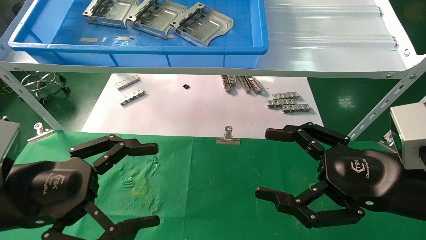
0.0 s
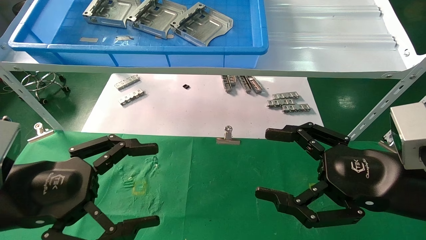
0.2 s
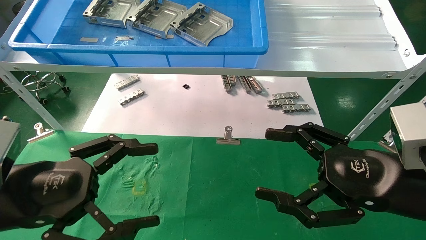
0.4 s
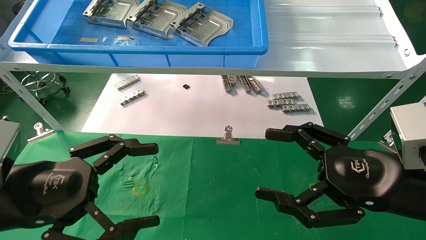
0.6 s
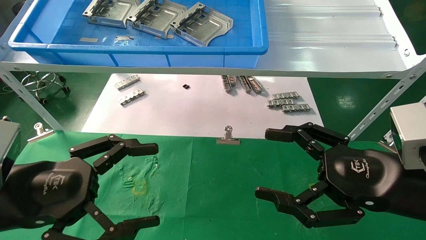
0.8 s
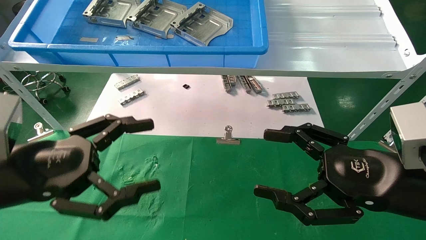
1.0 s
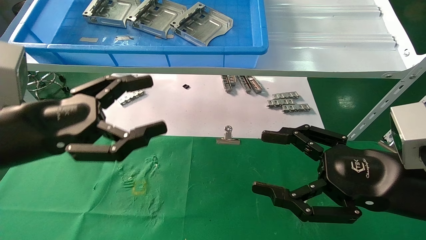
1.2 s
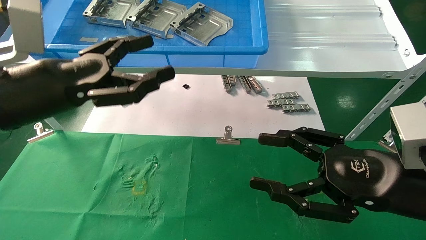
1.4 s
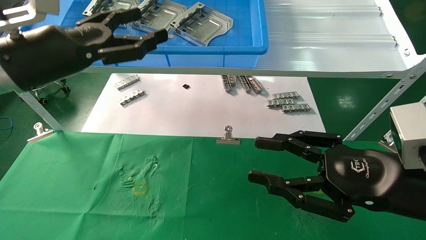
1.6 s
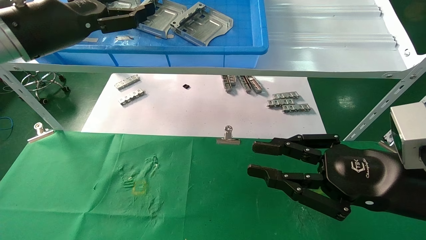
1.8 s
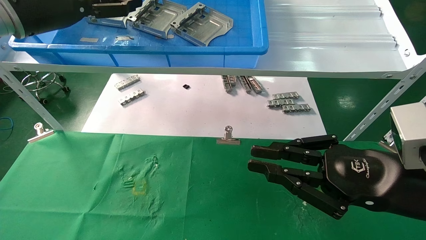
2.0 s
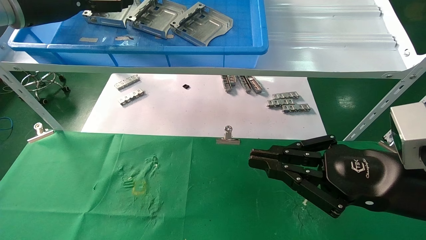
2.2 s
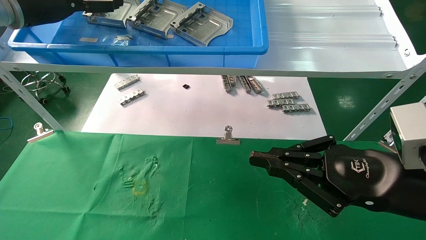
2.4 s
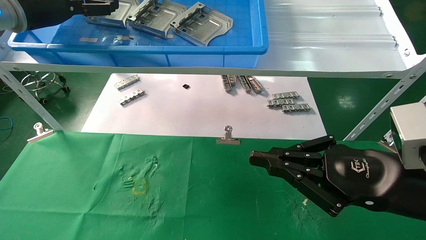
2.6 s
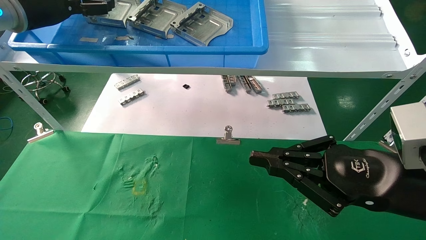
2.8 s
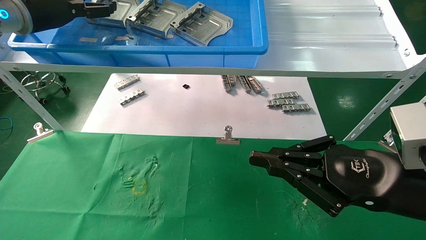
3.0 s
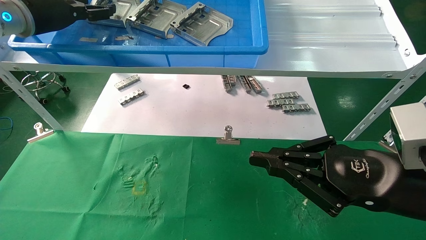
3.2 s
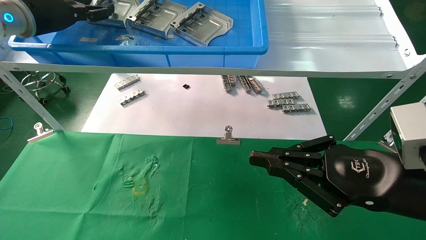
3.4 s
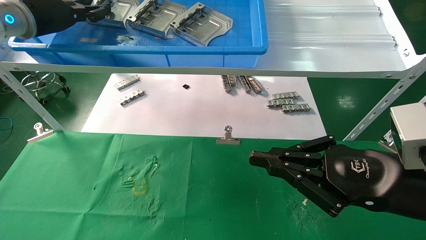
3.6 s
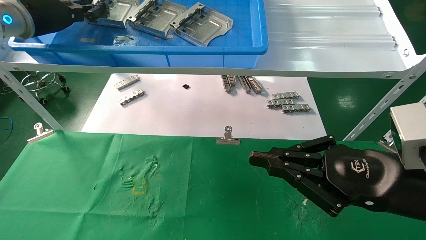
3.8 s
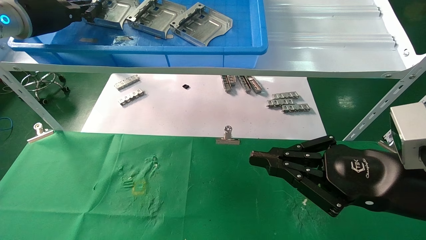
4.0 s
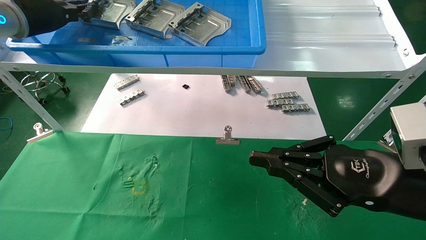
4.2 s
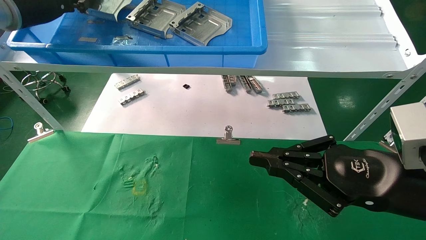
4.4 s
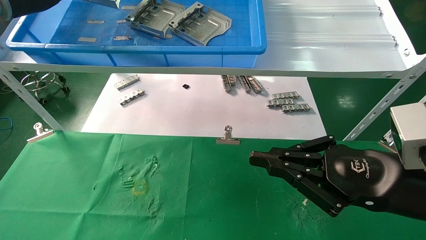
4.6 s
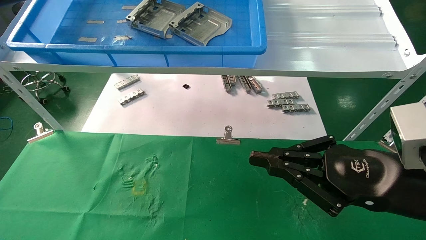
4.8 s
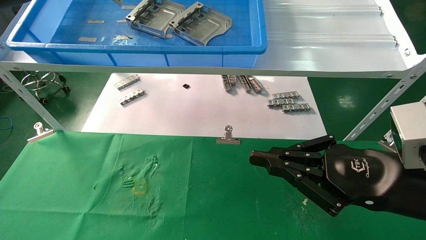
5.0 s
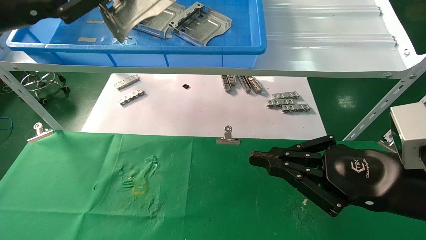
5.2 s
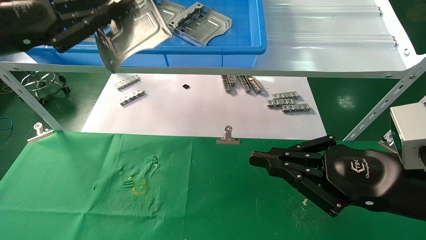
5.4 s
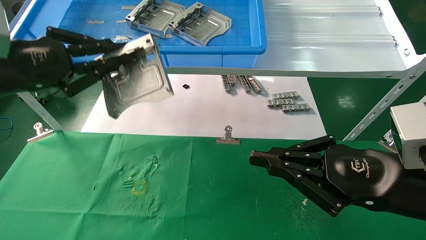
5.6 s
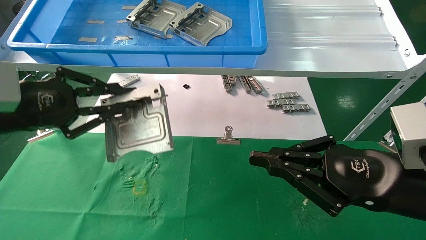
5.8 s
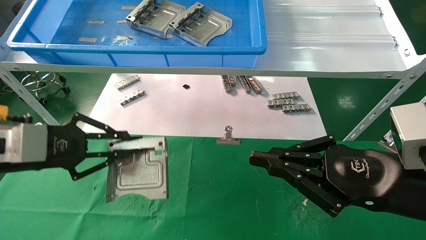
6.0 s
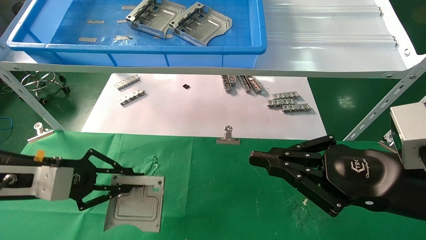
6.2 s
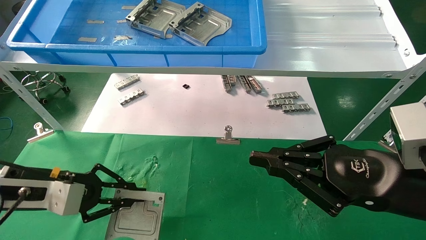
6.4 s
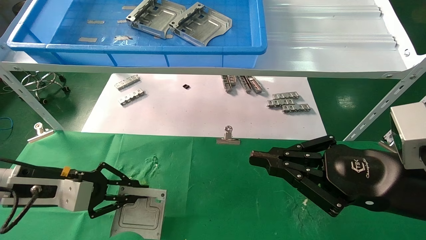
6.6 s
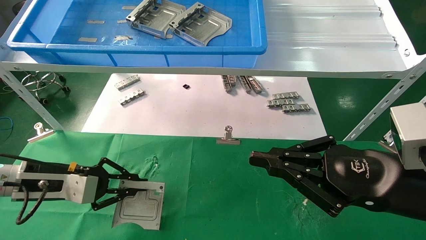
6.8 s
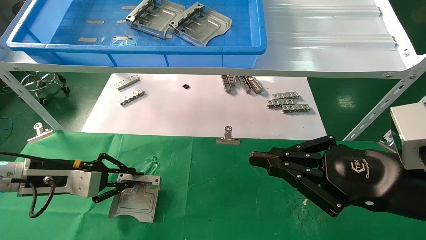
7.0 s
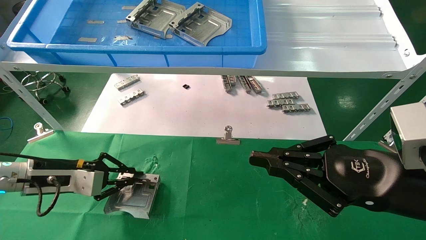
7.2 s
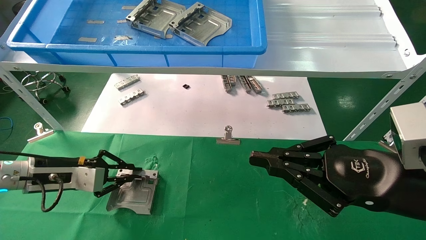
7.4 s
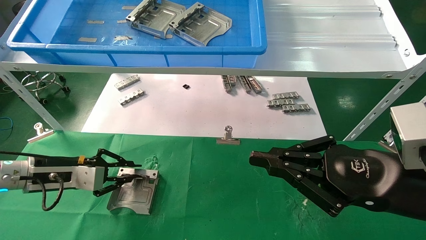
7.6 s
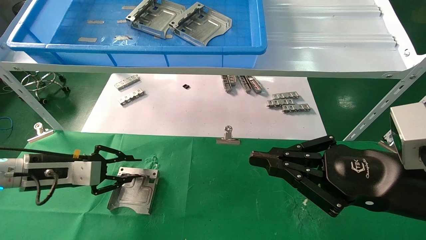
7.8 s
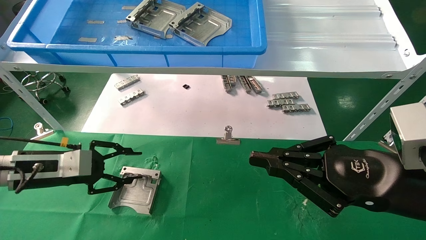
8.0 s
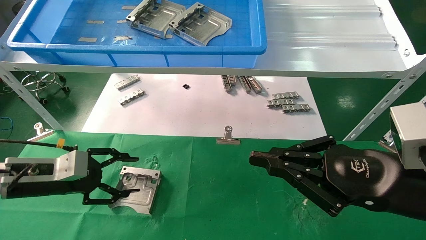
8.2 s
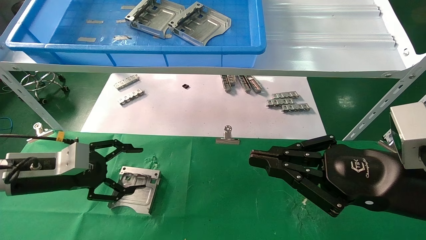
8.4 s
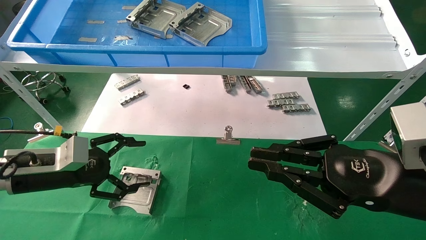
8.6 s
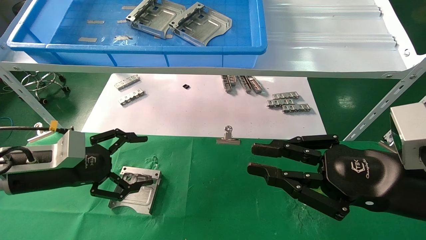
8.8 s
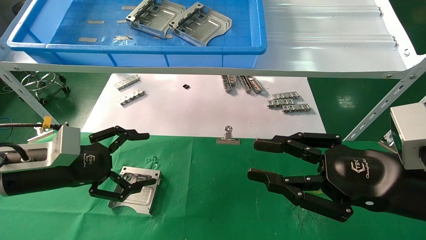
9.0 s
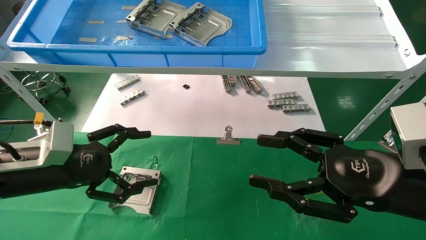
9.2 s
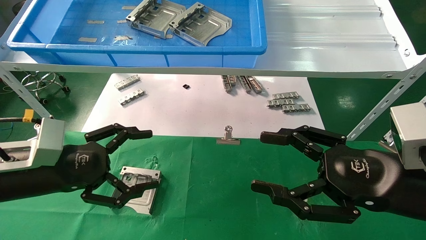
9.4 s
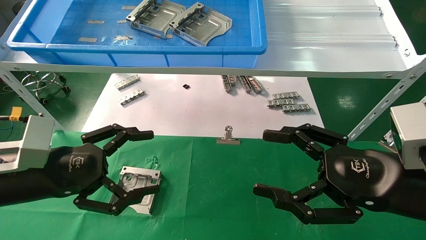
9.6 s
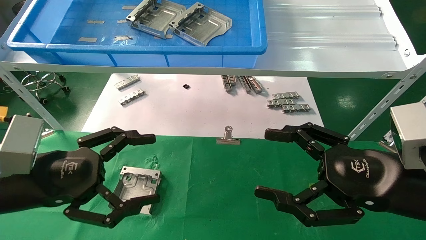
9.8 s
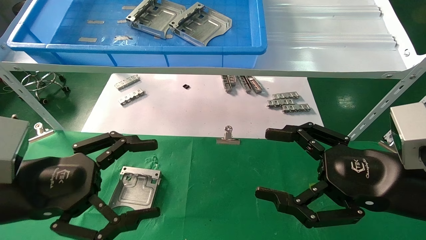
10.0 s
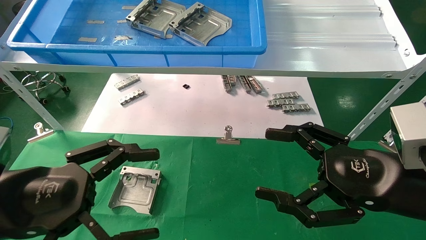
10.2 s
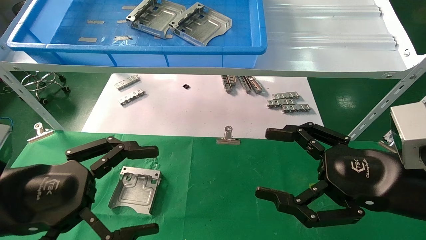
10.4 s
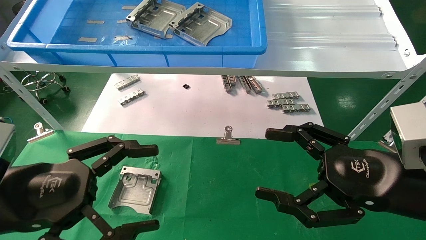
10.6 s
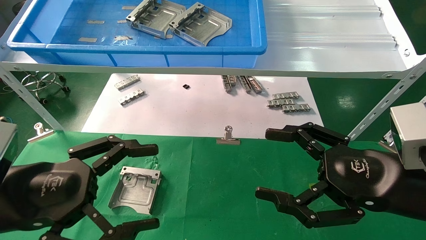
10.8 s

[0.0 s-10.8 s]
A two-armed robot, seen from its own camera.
Task of the whole recording: use the mechanical arm to pick up the parts and place them on the table.
Step, 1.2 to 3.8 s: Pick up the hard drive bracket from the feeding area.
Step, 4.0 to 7.8 s: Place the hard drive bracket into the box.
0.0 to 1.6 s: The left gripper is displaced upward and forward by about 20 cm, while the right gripper closes.
1.6 to 3.0 s: The right gripper closes; the left gripper is displaced forward, upward and to the left by approximately 15 cm.
3.0 to 4.6 s: The left gripper closes up.
4.6 to 6.2 s: The left gripper shifts approximately 30 cm downward and backward.
6.2 to 7.8 s: The left gripper travels forward by approximately 5 cm.
7.8 to 9.2 s: The right gripper opens. The left gripper travels backward by approximately 5 cm, and opens its fingers.
9.2 to 10.8 s: The right gripper opens up. The left gripper heads backward, covering about 10 cm.

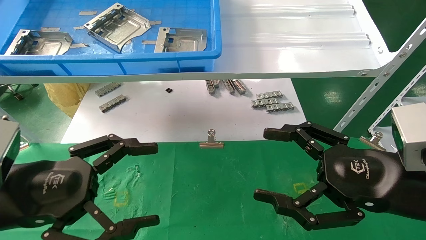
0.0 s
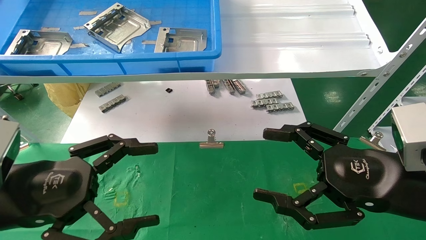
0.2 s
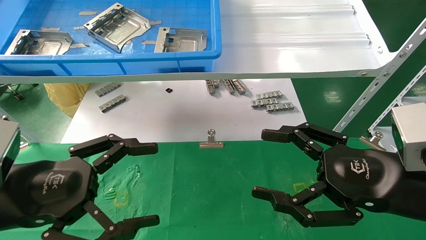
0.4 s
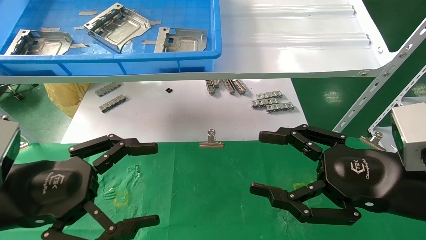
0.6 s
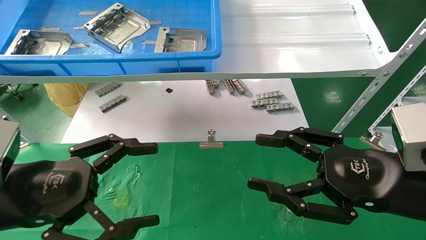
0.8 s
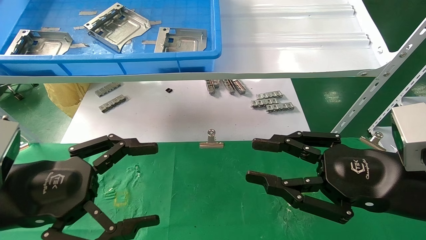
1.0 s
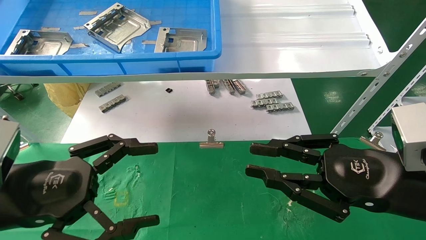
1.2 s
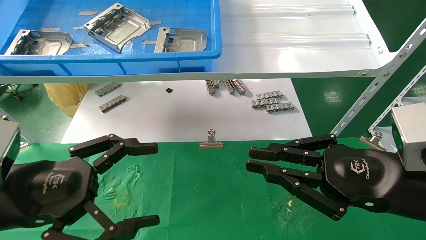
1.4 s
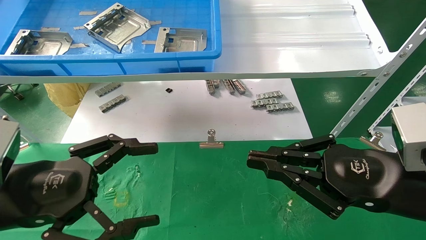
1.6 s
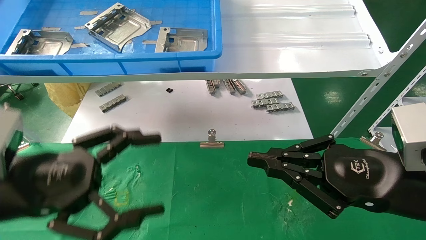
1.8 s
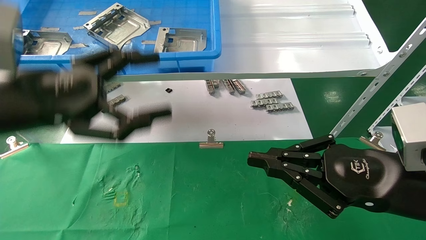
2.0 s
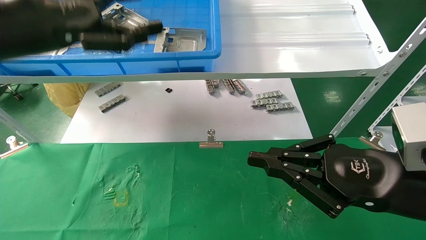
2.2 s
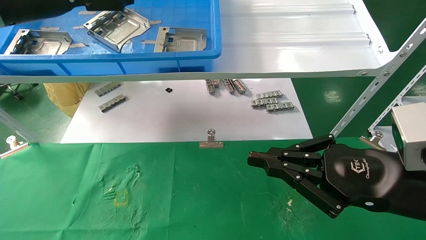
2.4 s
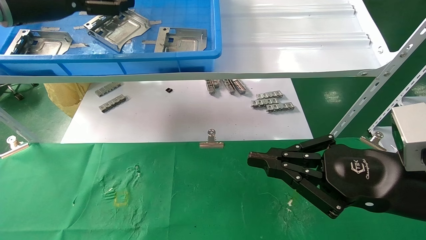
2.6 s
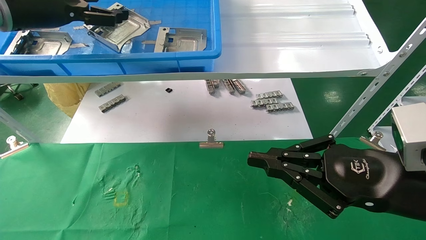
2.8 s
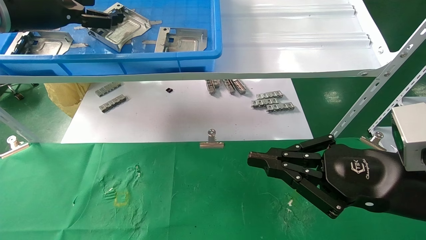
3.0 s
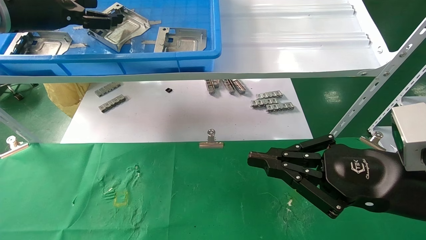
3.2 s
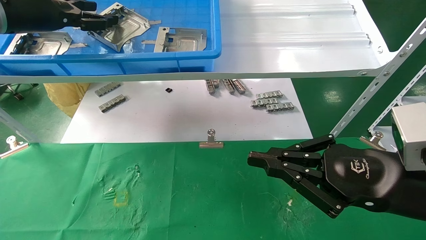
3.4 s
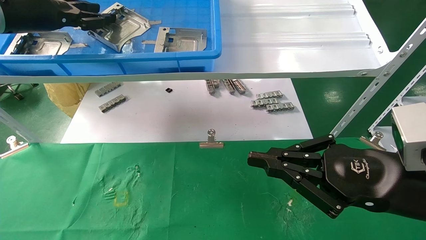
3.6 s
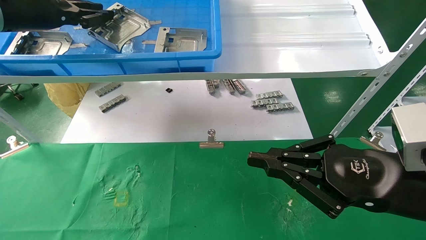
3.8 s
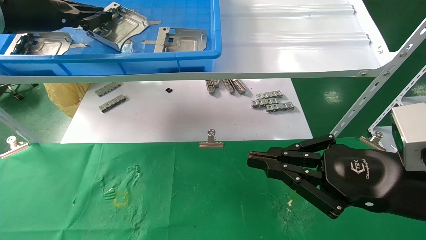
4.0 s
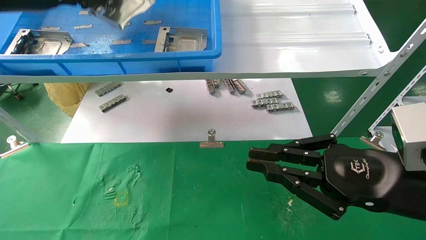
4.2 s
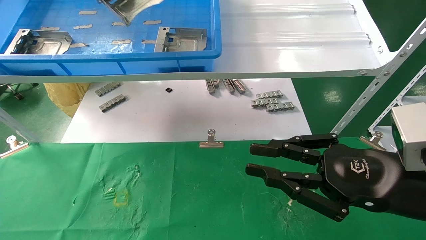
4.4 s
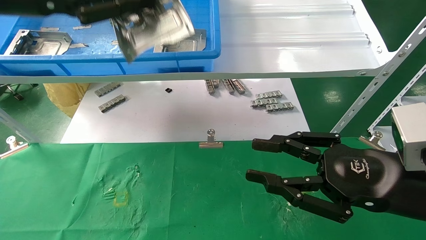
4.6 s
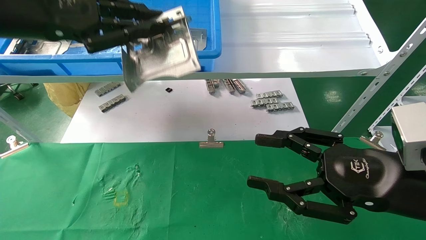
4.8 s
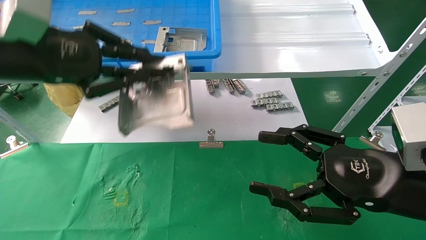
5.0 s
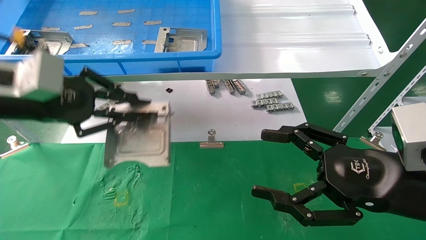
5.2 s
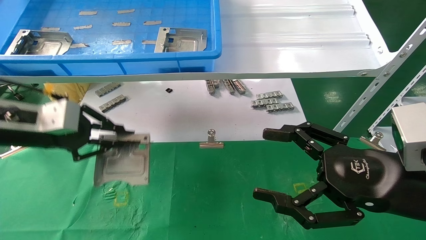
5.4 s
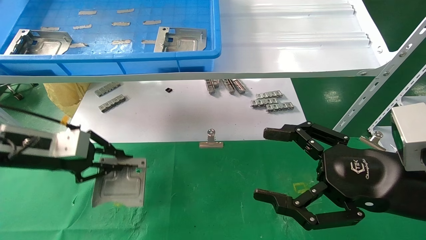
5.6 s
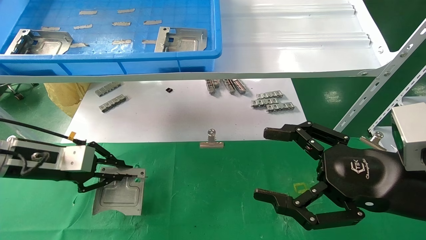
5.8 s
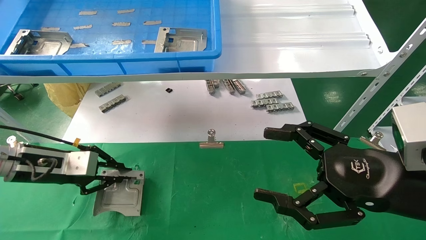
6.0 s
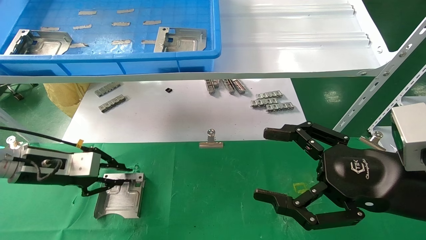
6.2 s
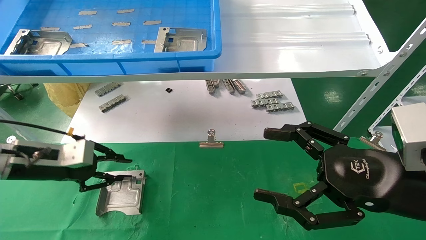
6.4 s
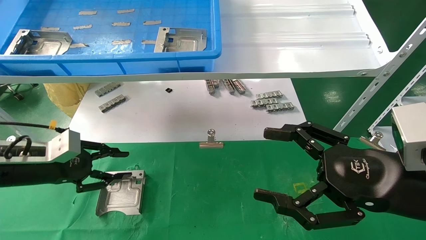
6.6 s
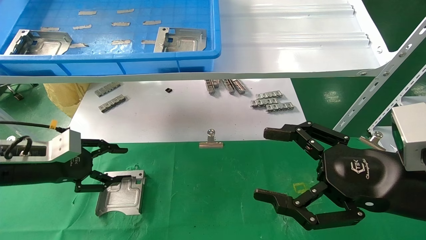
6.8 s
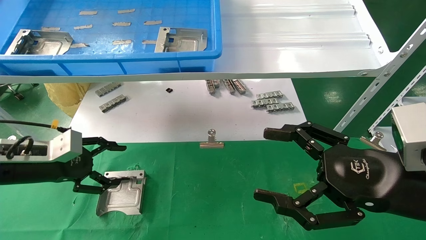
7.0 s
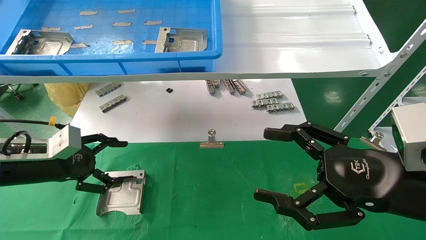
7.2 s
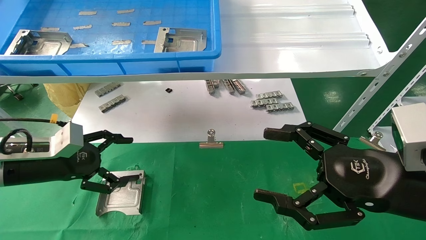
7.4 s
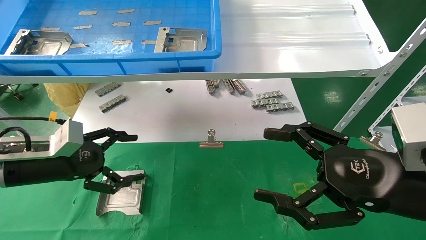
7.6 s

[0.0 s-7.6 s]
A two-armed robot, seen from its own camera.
Task of the whole recording: use the mechanical arm to pick up the parts and place them on the table.
Step, 2.0 to 3.8 s: Pick up the hard drive bracket from the feeding area.
Step, 4.0 to 6.4 s: Place the hard drive bracket into the box.
0.0 to 1.6 s: The right gripper closes its fingers.
1.6 to 3.0 s: The left gripper shifts approximately 30 cm upward and forward.
3.0 to 4.6 s: The left gripper travels backward by about 10 cm, and closes up.
4.6 to 6.0 s: The left gripper heads downward, covering some 25 cm. Meanwhile the right gripper opens its fingers.
6.0 to 7.6 s: The left gripper opens up.
